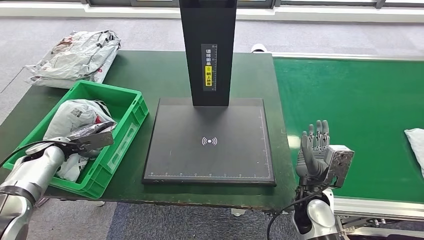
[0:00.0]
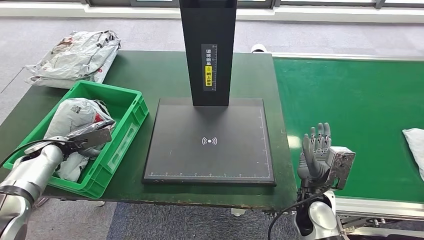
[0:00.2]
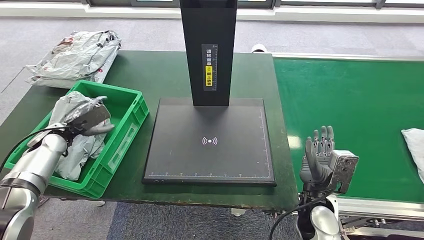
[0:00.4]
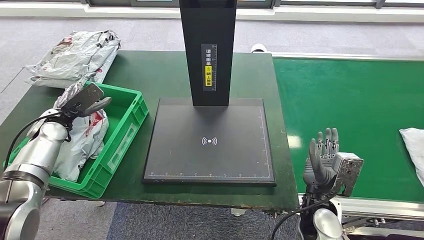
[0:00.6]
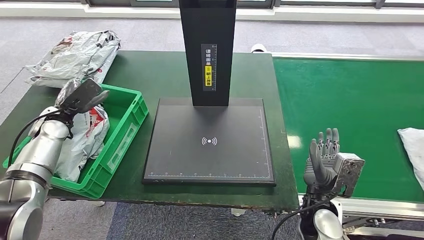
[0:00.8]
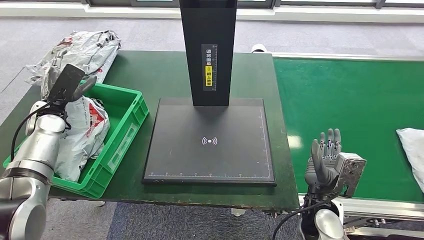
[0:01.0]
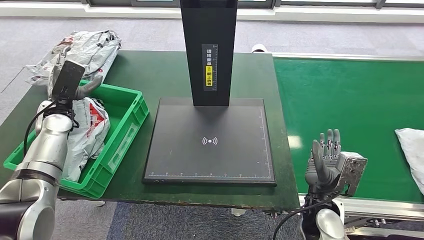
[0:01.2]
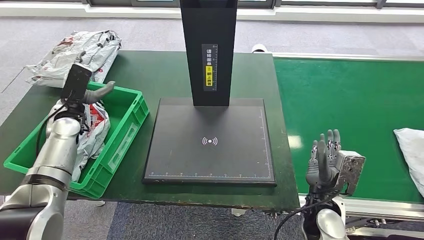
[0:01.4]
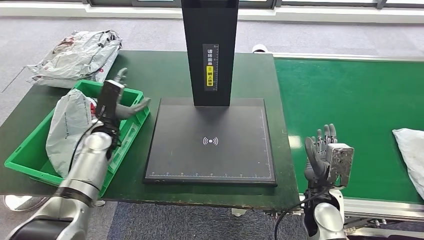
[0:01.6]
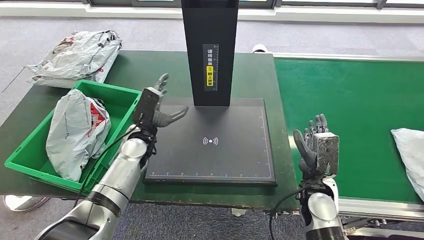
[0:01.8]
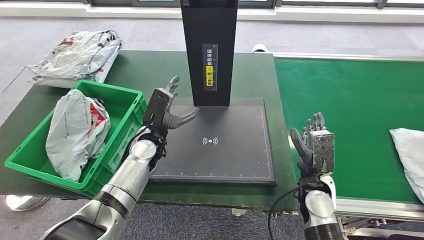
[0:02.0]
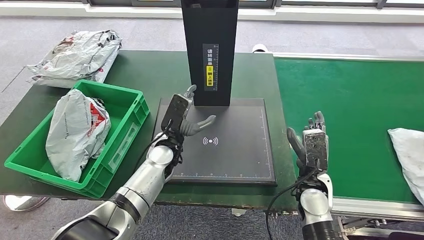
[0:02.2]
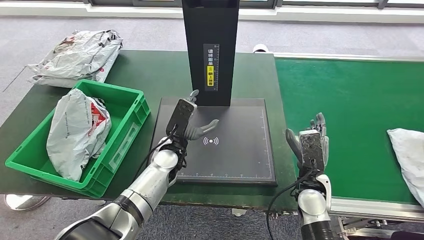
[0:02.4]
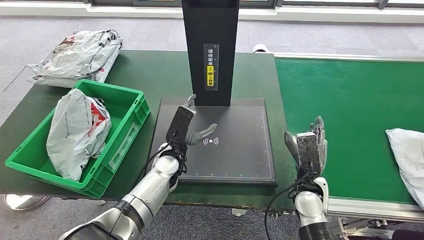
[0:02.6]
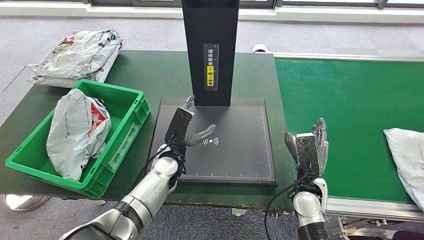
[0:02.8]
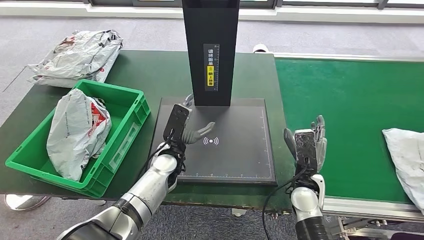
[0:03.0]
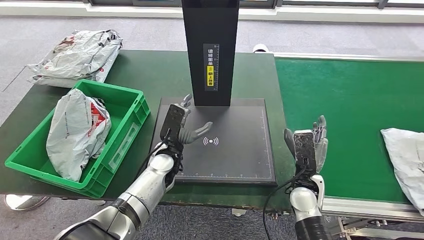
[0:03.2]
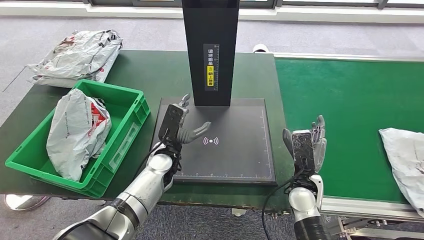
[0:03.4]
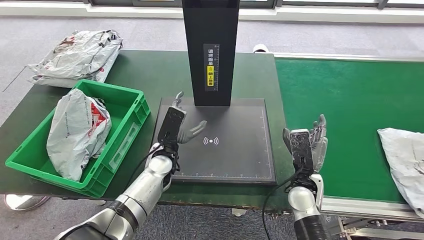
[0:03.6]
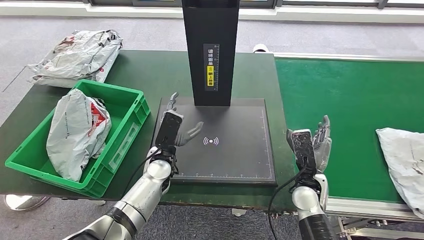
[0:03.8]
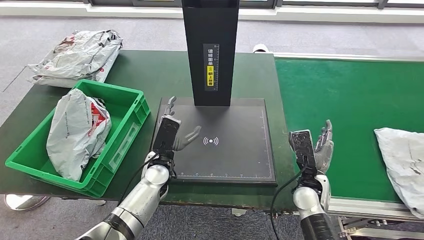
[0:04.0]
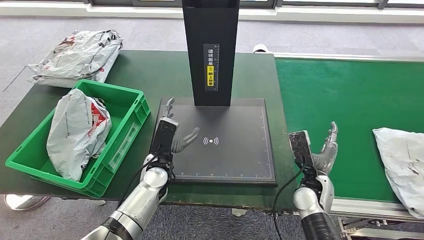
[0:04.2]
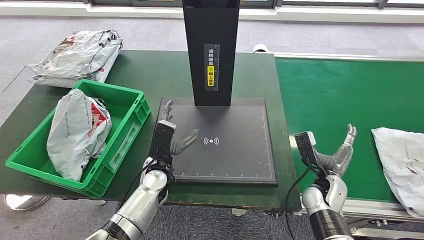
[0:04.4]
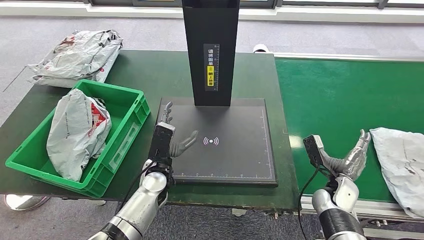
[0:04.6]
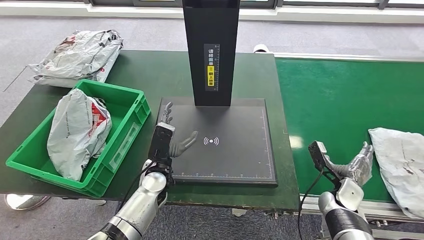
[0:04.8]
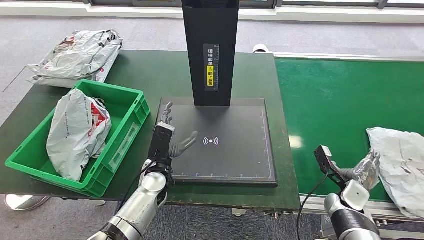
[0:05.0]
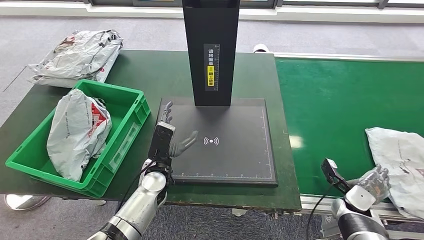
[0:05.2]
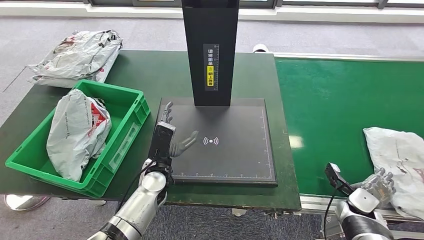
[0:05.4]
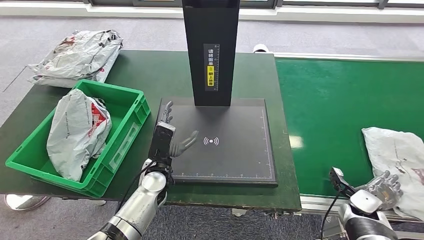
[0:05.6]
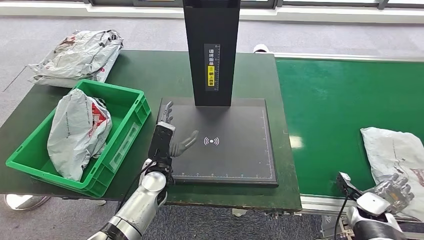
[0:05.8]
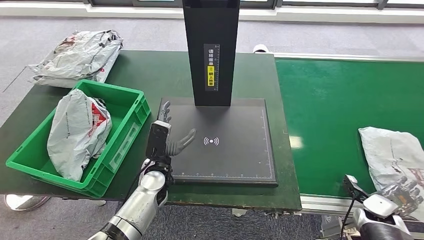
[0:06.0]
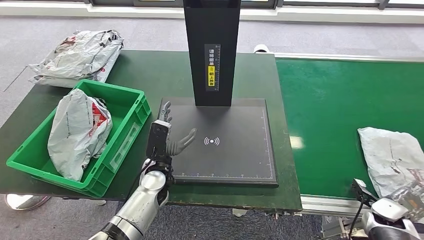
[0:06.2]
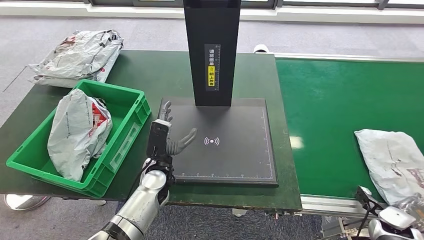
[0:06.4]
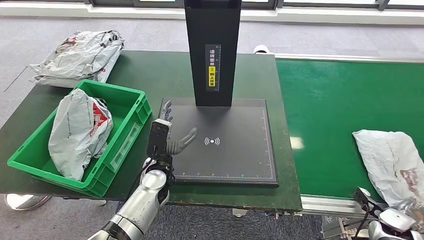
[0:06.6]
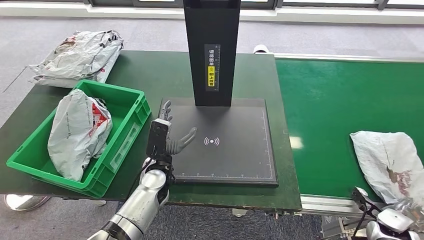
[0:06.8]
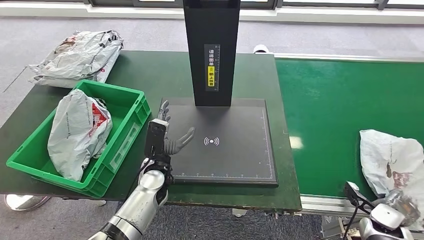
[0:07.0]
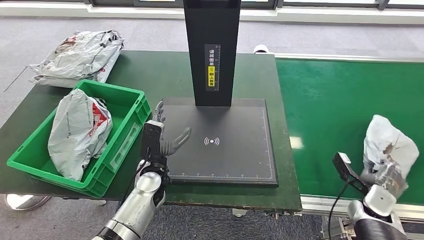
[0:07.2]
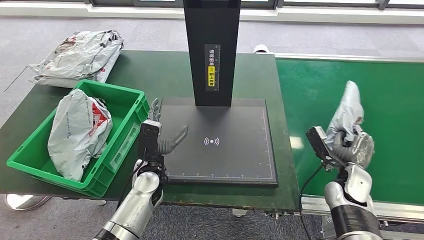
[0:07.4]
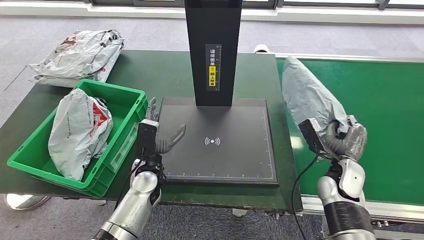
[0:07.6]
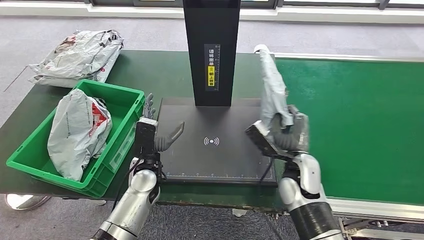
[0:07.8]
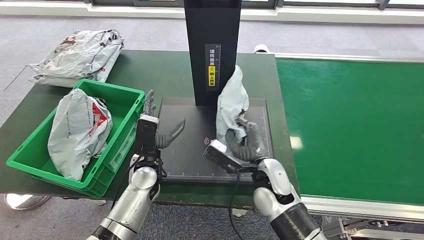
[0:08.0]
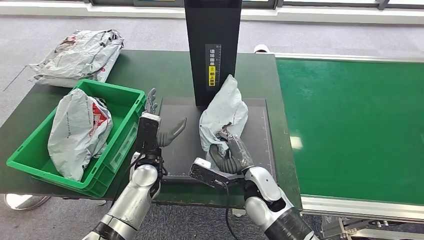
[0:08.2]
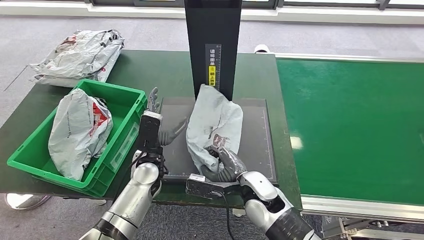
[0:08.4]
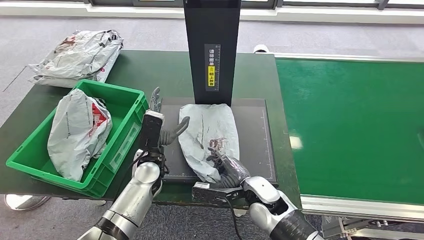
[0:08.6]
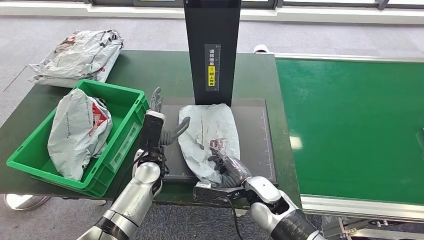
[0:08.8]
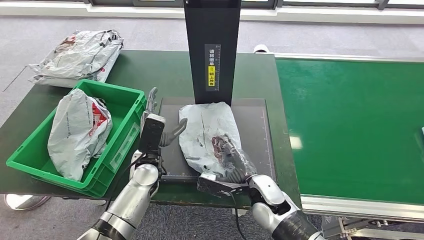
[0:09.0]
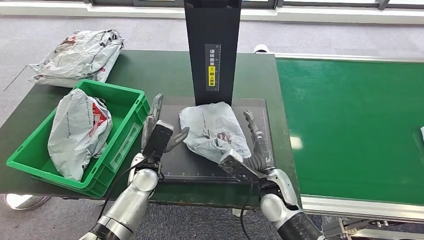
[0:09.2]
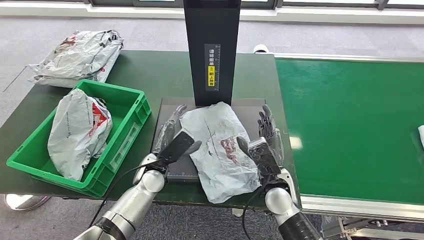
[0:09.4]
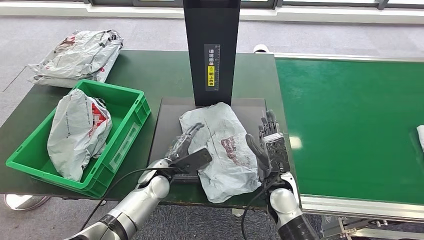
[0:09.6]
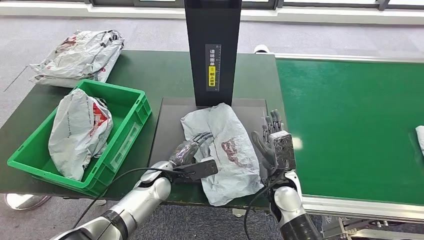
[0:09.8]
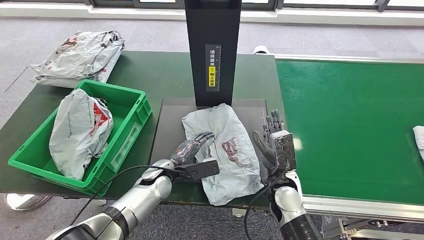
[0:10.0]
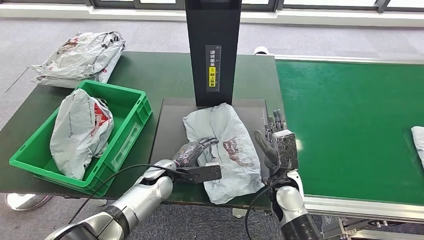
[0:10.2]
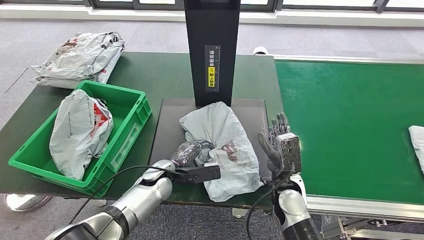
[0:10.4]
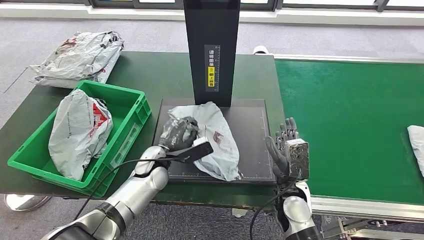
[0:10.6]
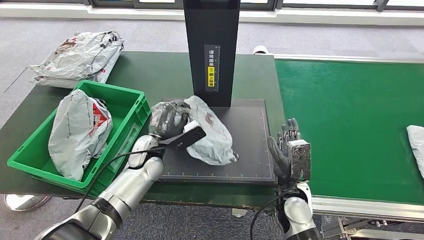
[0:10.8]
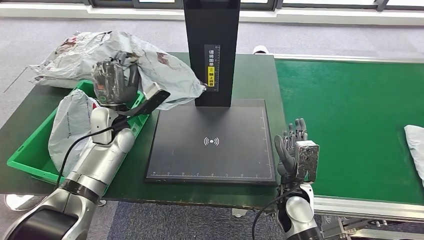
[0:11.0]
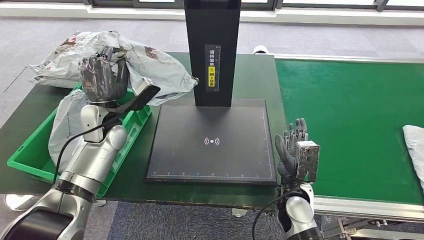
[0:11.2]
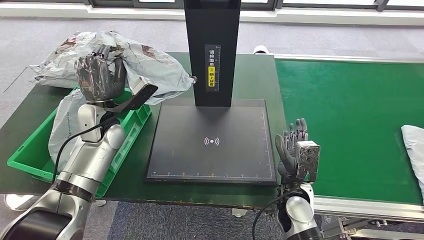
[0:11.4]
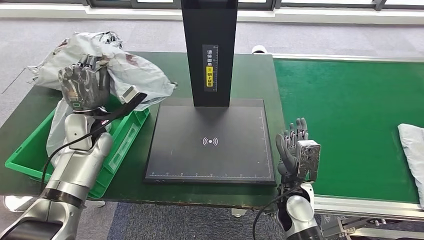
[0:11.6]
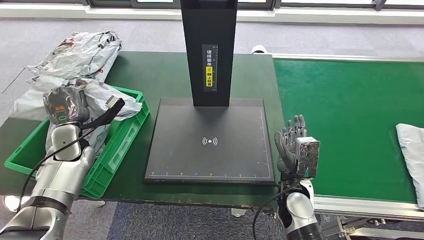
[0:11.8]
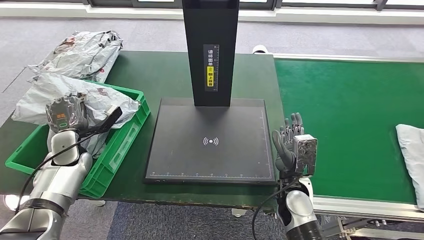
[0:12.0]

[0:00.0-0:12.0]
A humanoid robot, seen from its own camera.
Step, 0:00.0 to 0:02.0: Put the parcel inside the courier box.
Step, 0:02.2 to 0:07.6: Pick up the parcel from the conveyor belt.
Step, 0:07.8 to 0:10.6: Place the parcel onto the inbound machine.
Step, 0:10.8 to 0:11.4: Pick up the parcel from the inbound machine.
0:00.0 to 0:01.6: The left hand is displaced to the right by about 20 cm.
0:01.6 to 0:03.0: The left hand is displaced to the right by some 20 cm.
0:03.0 to 0:04.4: The right hand moves to the right, about 5 cm.
0:04.4 to 0:06.0: The right hand moves to the right, about 15 cm.

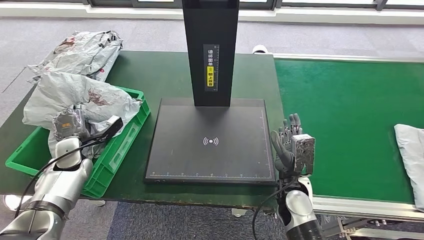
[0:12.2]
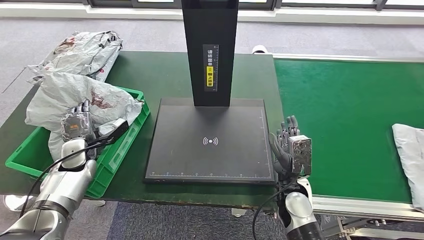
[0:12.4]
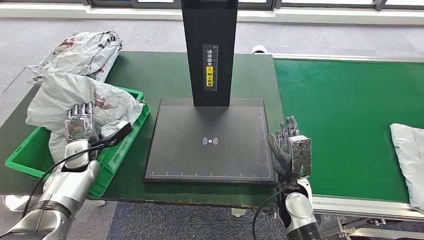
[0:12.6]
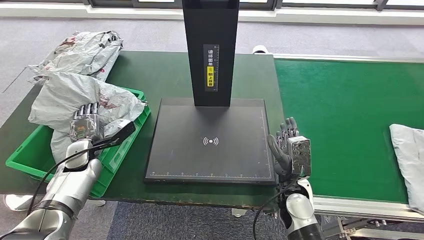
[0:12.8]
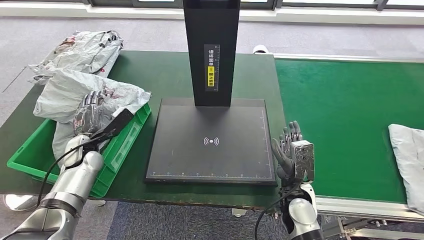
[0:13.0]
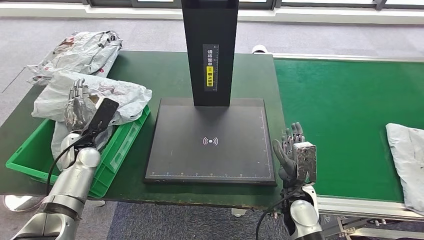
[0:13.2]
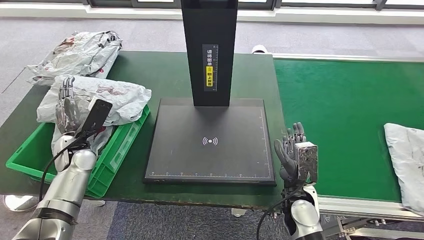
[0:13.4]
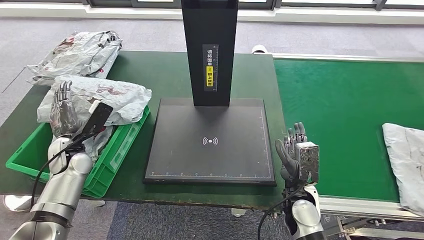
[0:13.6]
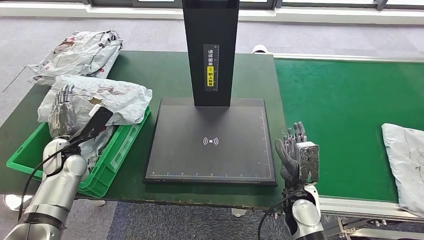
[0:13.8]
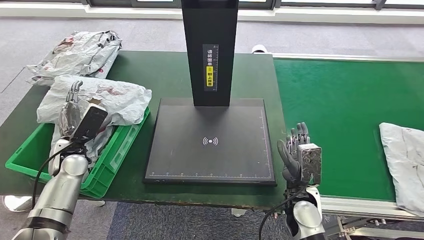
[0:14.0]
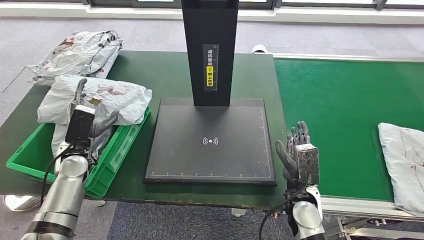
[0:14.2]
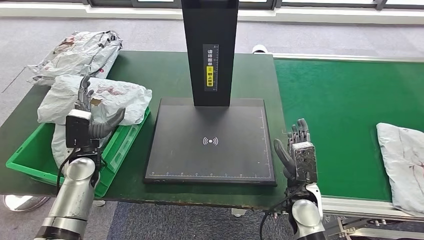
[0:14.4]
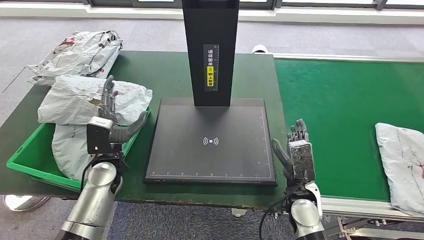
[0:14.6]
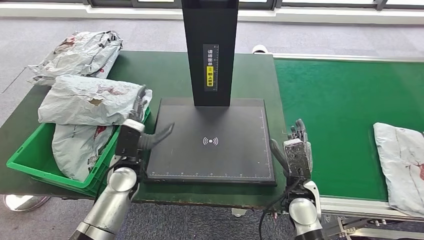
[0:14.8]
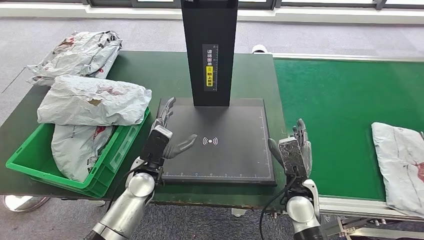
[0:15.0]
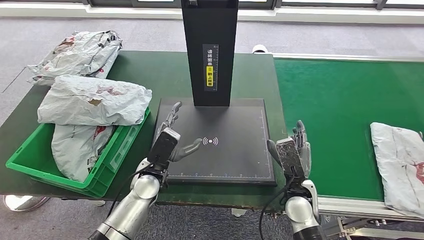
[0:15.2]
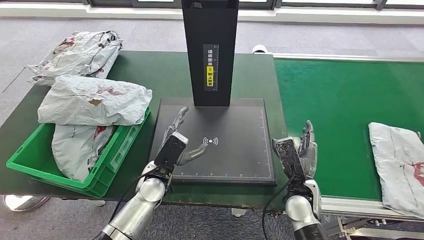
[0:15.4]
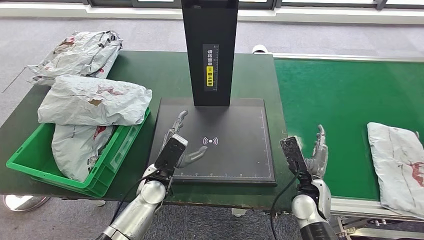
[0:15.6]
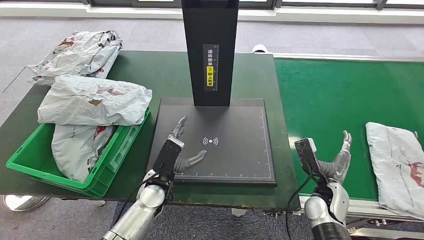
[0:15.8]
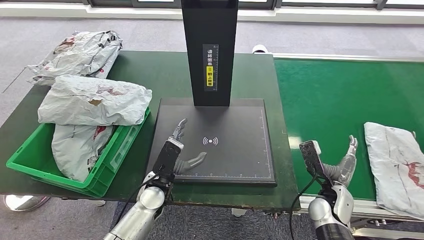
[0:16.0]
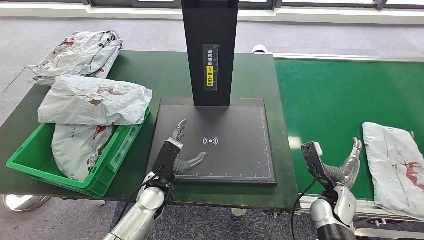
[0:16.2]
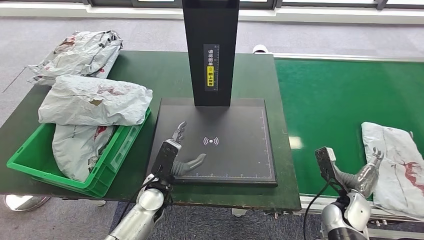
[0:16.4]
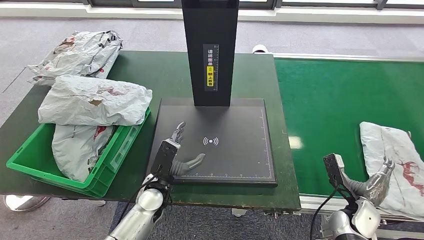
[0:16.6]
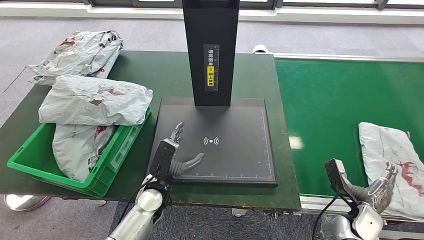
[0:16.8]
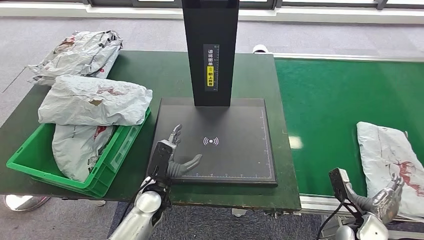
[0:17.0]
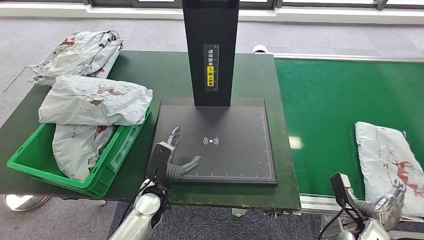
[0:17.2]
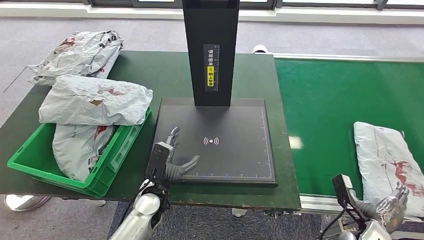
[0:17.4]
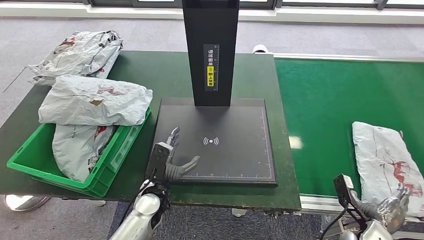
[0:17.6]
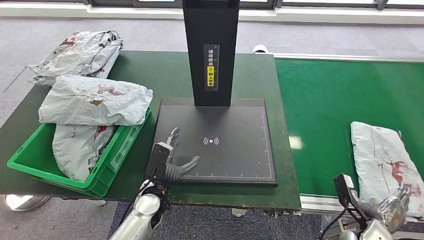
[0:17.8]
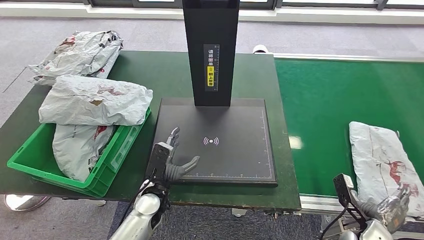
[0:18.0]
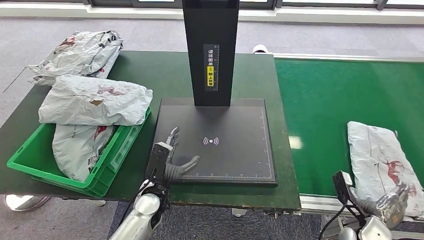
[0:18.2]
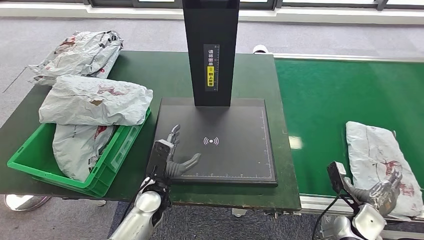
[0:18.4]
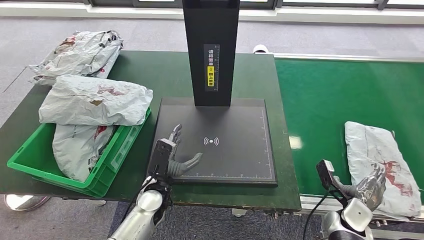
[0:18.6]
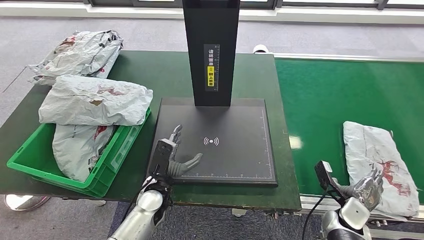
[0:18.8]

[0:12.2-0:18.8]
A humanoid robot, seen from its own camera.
Step, 0:12.2 to 0:14.4: Place the parcel into the delivery box.
0:13.8 to 0:15.4: The left hand travels to the right by approximately 25 cm.
0:15.4 to 0:17.2: The right hand goes roughly 20 cm to the right, backward and downward. The left hand shifts by about 5 cm.
0:17.2 to 0:18.8: The right hand shifts about 5 cm forward.
